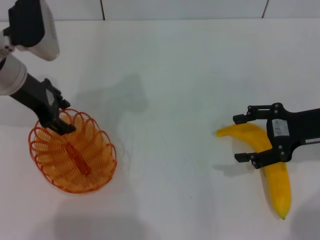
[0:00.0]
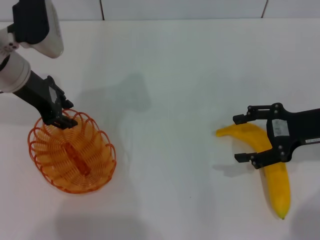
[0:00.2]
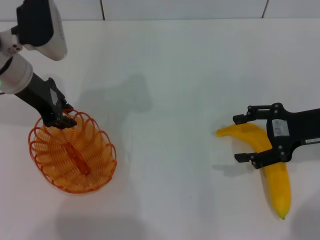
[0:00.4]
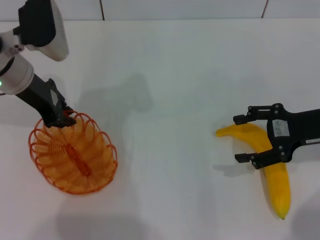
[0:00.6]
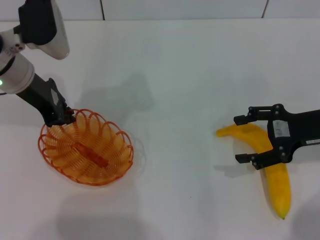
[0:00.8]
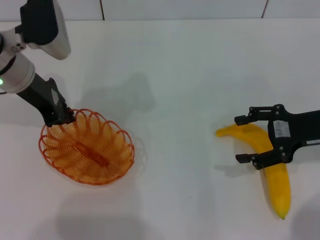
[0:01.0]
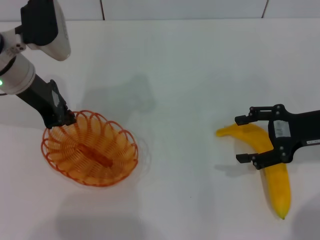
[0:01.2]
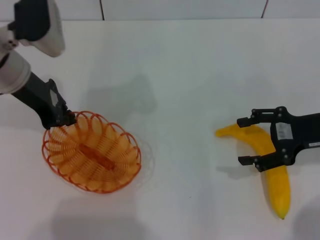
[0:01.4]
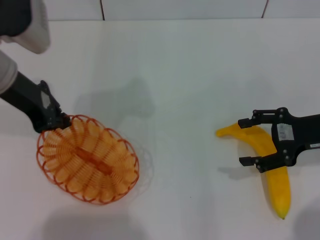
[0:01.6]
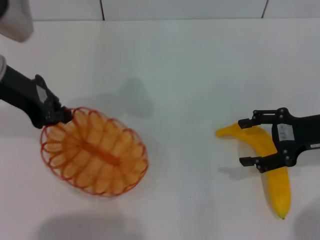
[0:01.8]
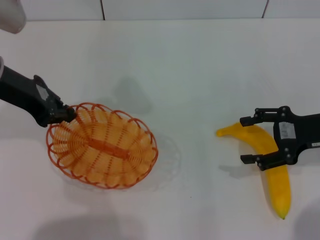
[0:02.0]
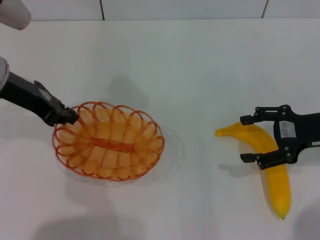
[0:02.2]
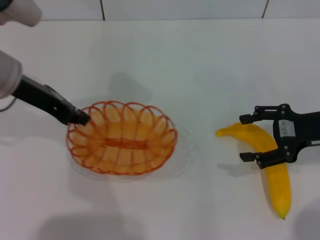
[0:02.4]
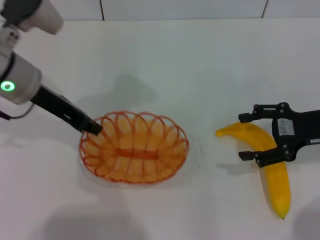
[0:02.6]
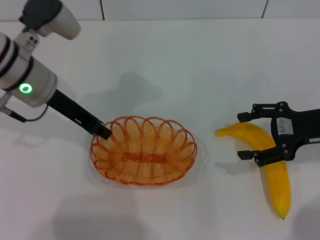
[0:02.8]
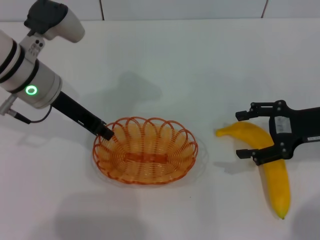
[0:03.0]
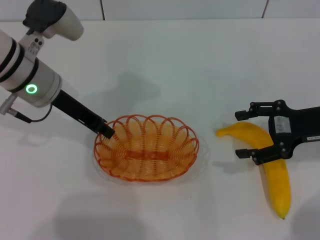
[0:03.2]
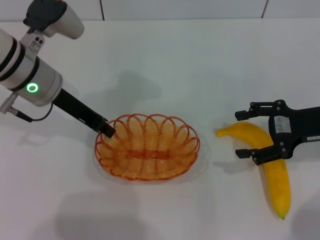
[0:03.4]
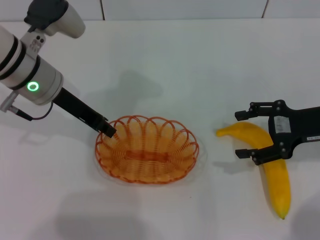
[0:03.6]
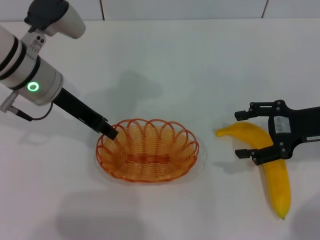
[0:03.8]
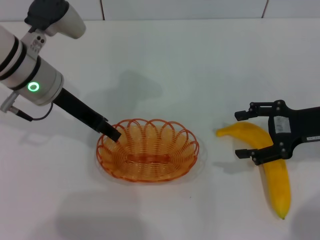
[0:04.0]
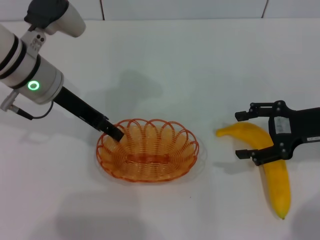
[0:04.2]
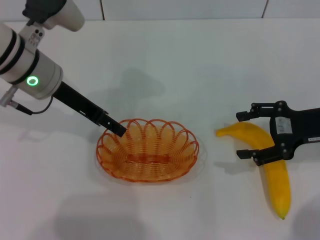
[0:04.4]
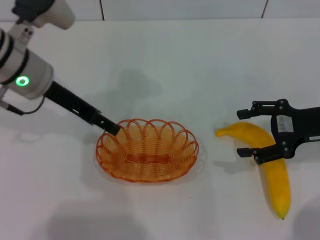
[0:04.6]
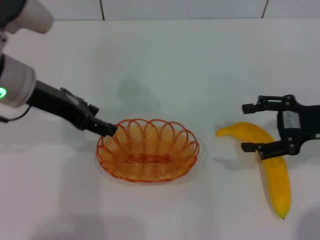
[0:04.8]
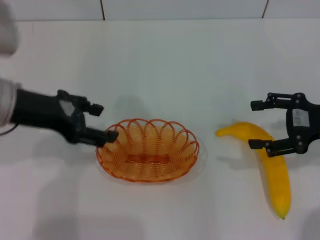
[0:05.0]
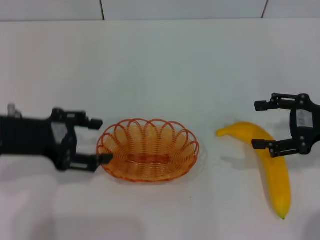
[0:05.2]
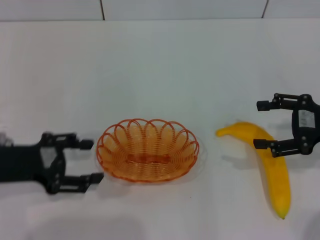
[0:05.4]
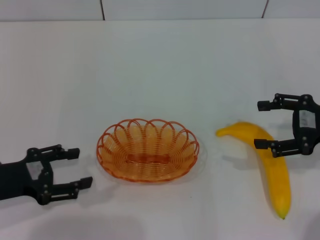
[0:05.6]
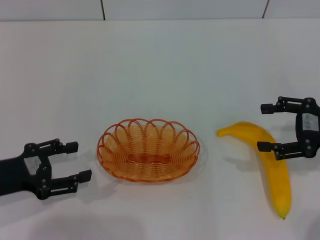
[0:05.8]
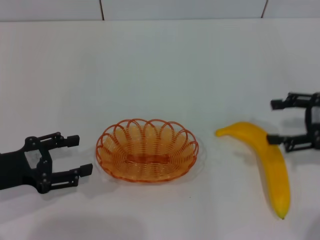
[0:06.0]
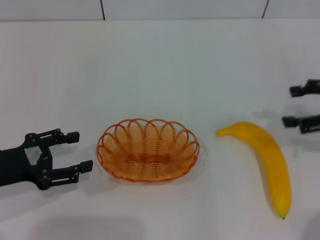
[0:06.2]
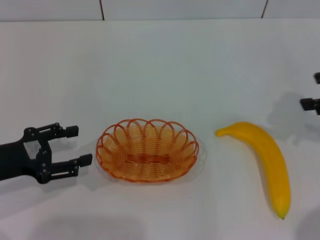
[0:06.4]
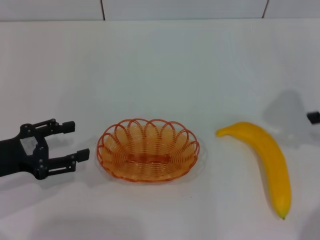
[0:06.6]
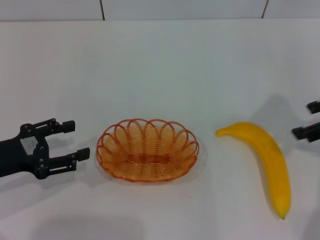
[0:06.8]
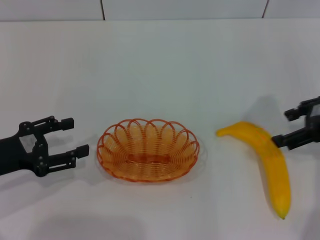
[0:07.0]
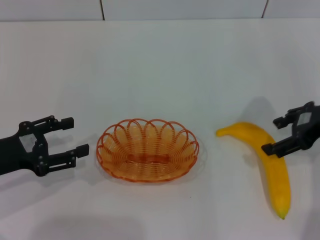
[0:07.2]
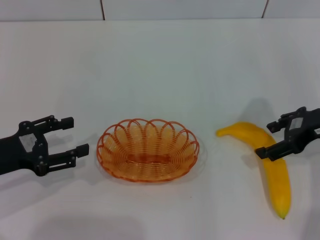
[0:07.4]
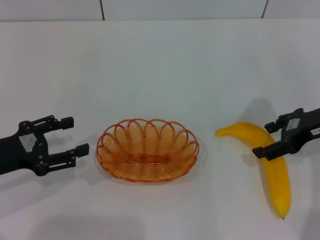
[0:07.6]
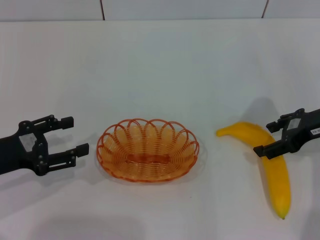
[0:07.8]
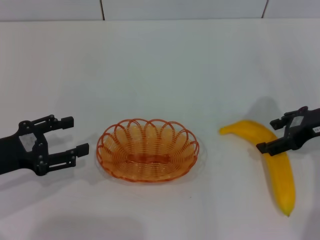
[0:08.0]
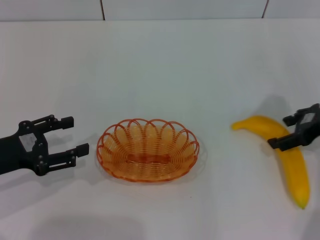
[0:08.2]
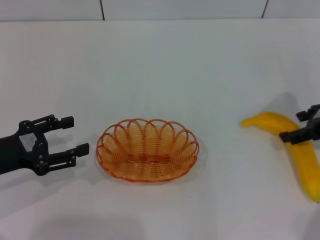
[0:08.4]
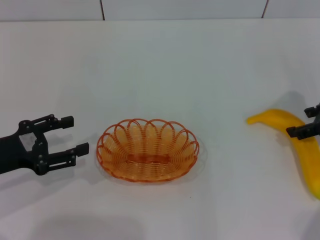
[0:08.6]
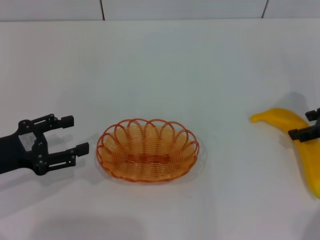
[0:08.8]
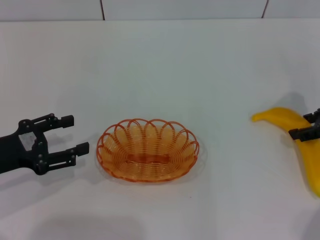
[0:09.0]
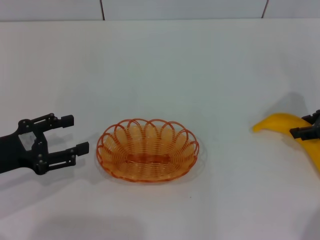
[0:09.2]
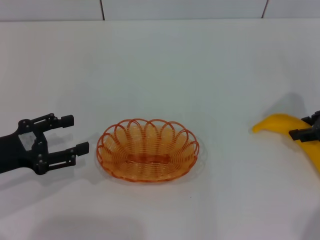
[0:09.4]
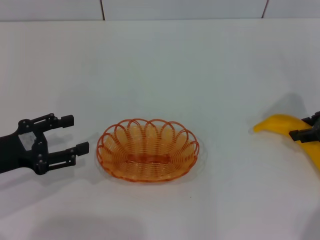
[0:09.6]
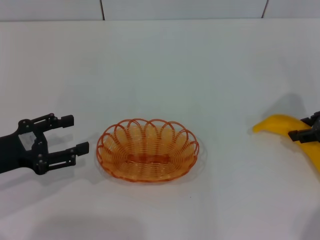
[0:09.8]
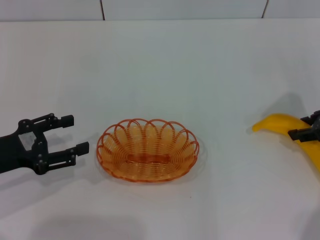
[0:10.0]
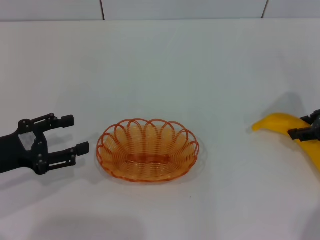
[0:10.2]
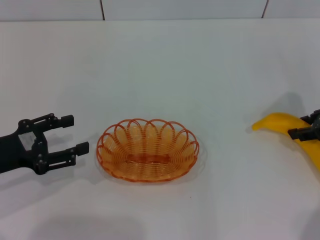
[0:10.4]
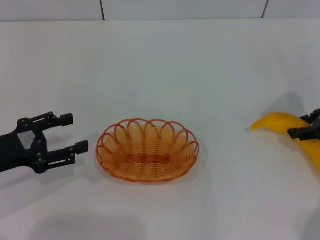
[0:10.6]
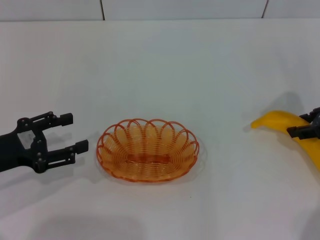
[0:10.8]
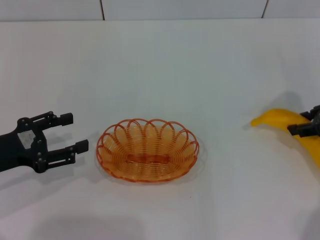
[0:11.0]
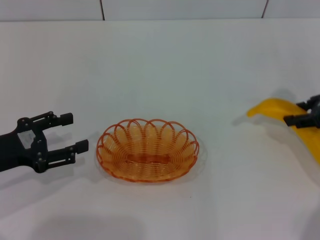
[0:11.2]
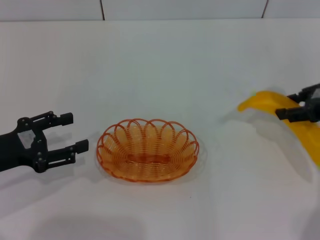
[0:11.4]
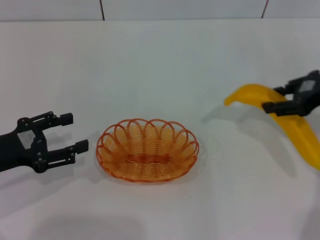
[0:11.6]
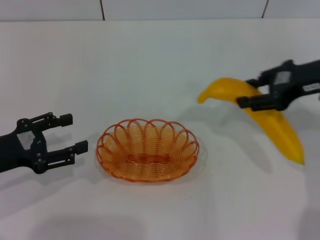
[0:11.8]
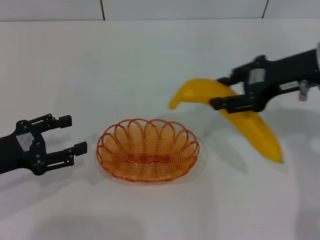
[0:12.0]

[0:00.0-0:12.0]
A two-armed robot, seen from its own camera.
Step, 0:01.6 to 0:04.6: Place the basket in the center of view with the left gripper.
Step, 0:04.8 to 0:11.2: Pick up the banana with the right gripper.
0:00.0 to 0:01.6: The left gripper closes its fingers.
0:01.6 to 0:03.0: The left gripper changes place by some 5 cm.
0:03.0 to 0:04.4: The left gripper opens.
0:04.4 to 0:06.0: The left gripper goes about 20 cm backward, to the left and downward.
0:06.0 to 0:07.6: The right gripper moves to the left, some 5 cm, and goes upward and returns, roughly 10 cm each way.
0:07.6 to 0:09.0: The right gripper goes approximately 5 cm to the right.
0:09.0 to 0:10.4: The right gripper closes.
0:10.4 to 0:12.0: The right gripper shifts some 10 cm to the left and upward.

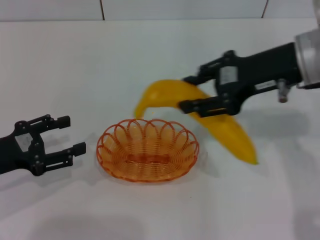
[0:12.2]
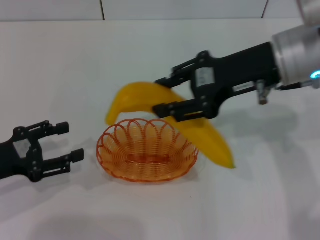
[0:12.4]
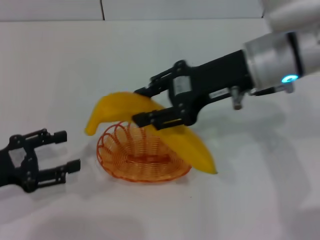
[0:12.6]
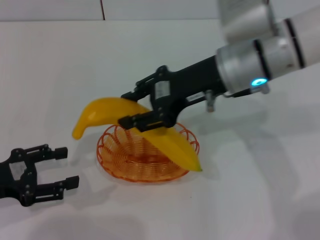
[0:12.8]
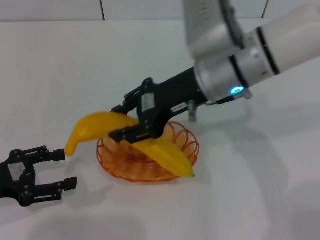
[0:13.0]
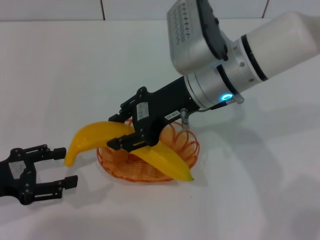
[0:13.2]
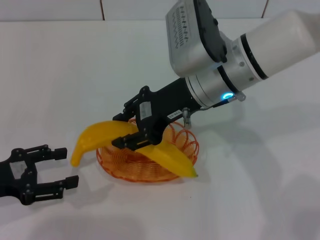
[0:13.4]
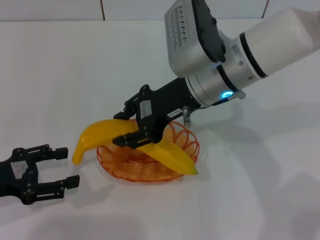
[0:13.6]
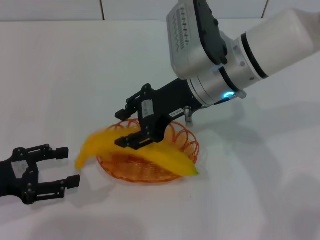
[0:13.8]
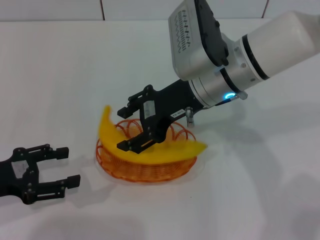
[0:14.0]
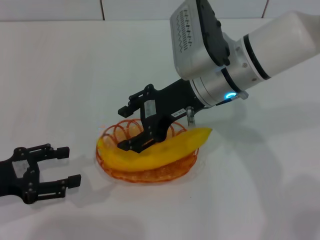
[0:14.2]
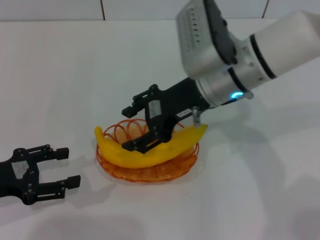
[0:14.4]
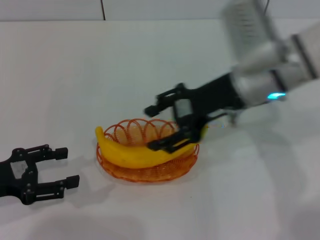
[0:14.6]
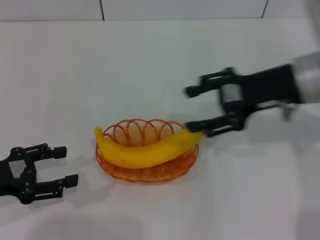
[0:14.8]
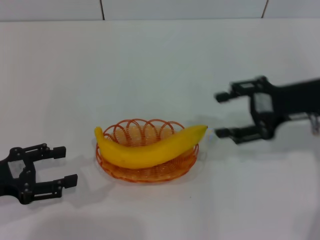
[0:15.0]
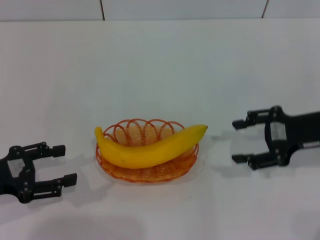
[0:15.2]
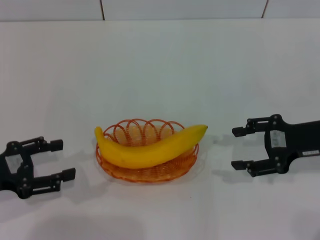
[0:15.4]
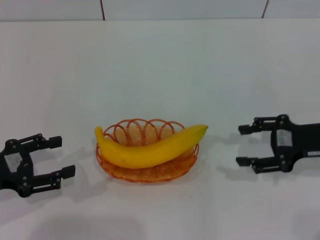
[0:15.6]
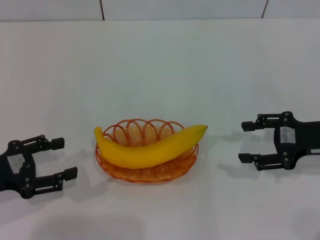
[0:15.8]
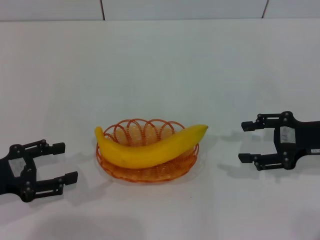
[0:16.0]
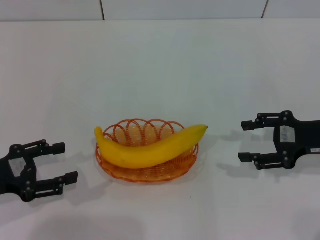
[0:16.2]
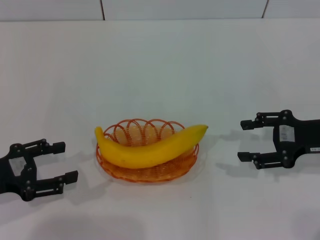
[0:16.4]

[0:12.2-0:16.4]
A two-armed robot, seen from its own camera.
Step, 0:12.2 to 0:14.2: Place the banana into the basket with the right gripper.
0:12.2 to 0:13.6: The right gripper goes about 10 cm to the left.
0:13.6 to 0:15.0: The right gripper heads to the right, covering approximately 20 cm, and opens its fingers.
0:15.0 to 0:16.4: The right gripper shifts about 5 cm downward.
